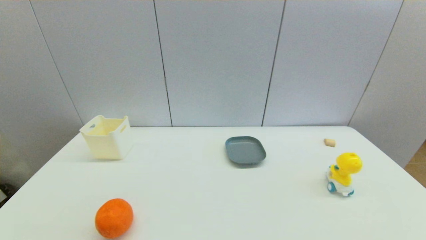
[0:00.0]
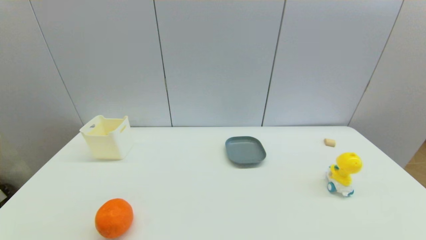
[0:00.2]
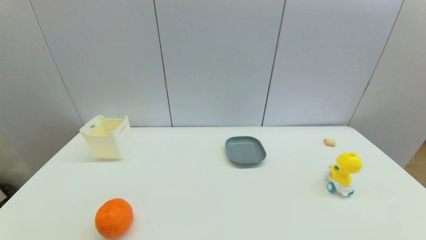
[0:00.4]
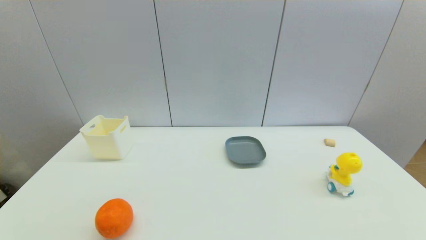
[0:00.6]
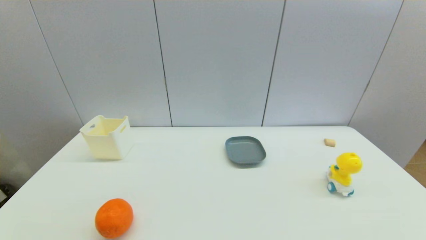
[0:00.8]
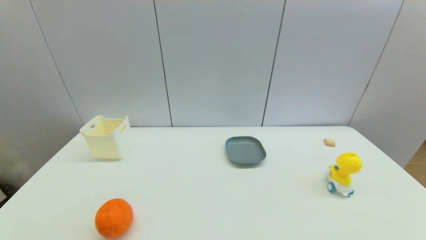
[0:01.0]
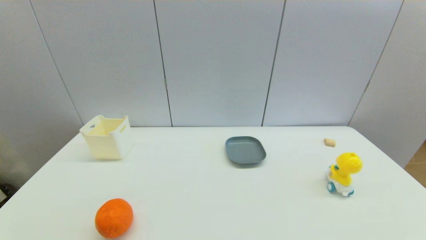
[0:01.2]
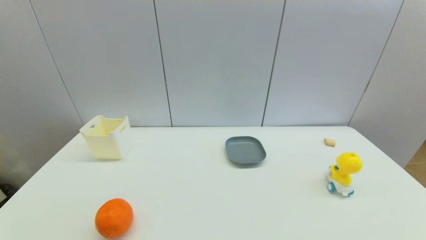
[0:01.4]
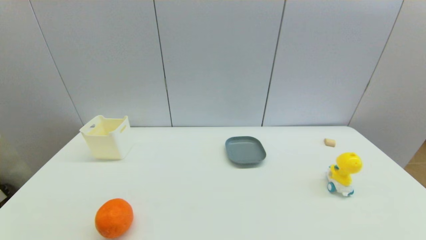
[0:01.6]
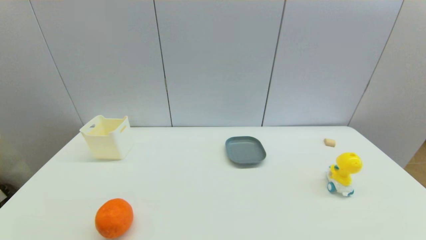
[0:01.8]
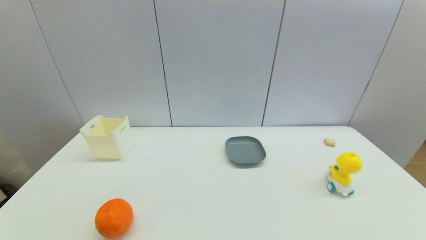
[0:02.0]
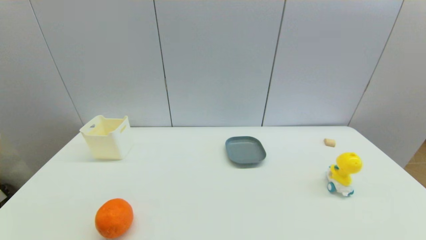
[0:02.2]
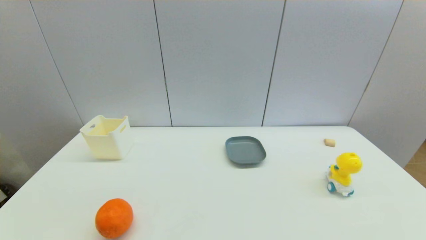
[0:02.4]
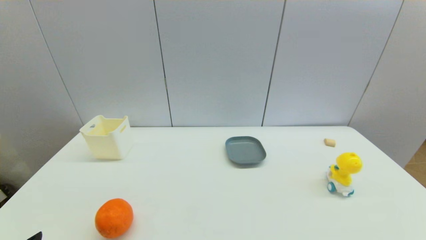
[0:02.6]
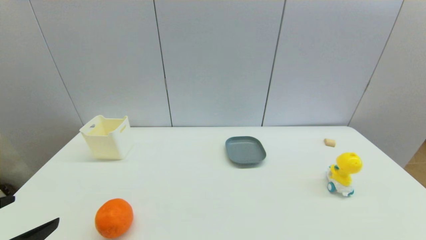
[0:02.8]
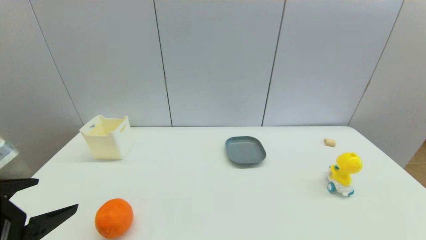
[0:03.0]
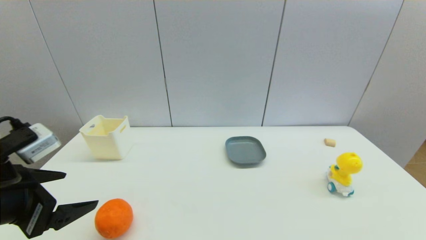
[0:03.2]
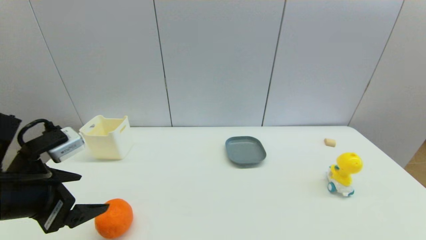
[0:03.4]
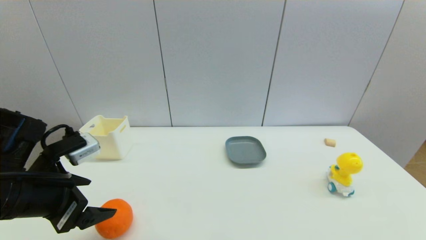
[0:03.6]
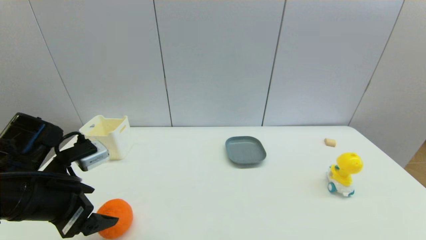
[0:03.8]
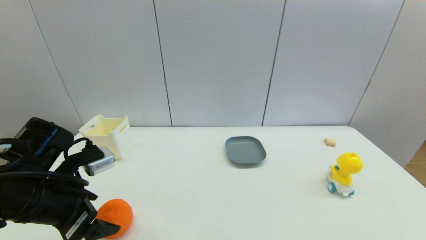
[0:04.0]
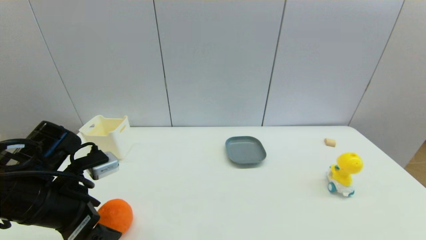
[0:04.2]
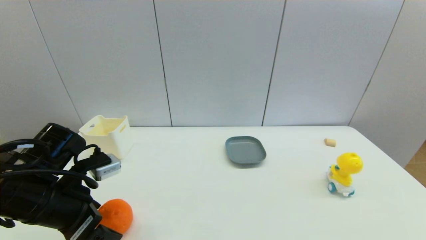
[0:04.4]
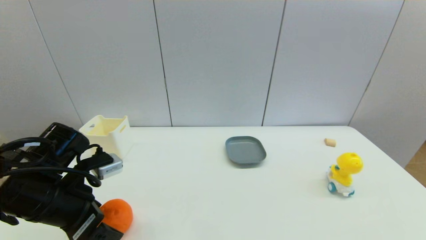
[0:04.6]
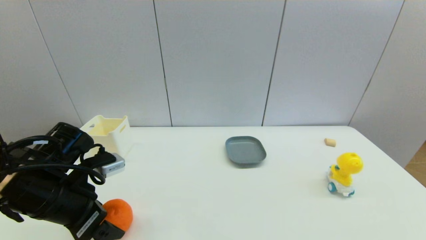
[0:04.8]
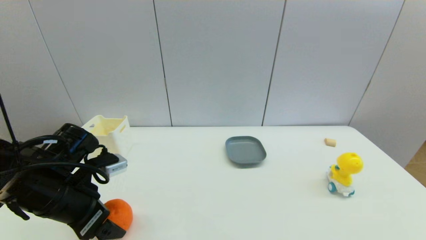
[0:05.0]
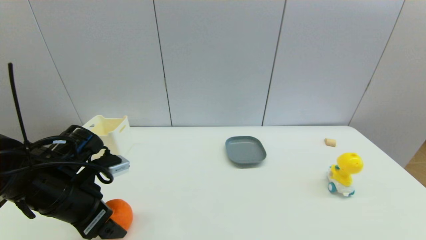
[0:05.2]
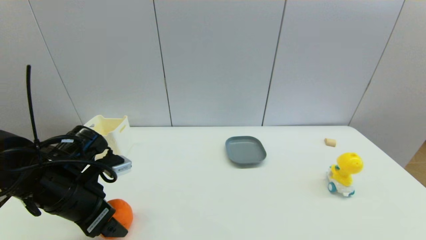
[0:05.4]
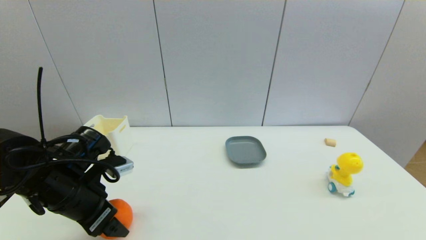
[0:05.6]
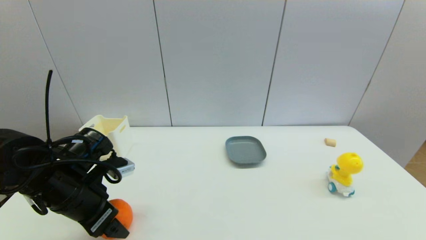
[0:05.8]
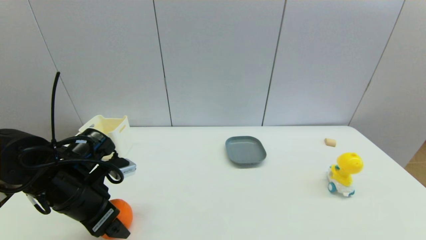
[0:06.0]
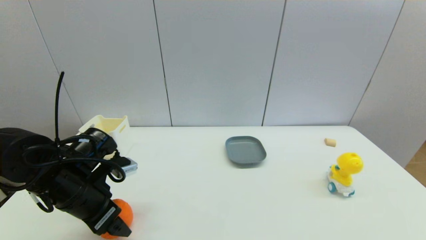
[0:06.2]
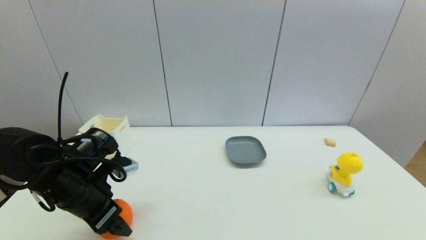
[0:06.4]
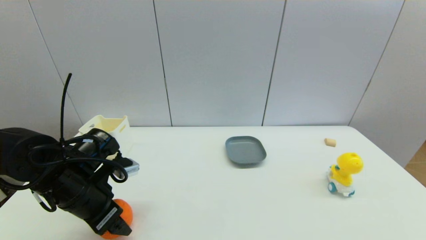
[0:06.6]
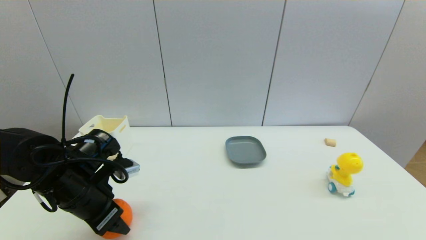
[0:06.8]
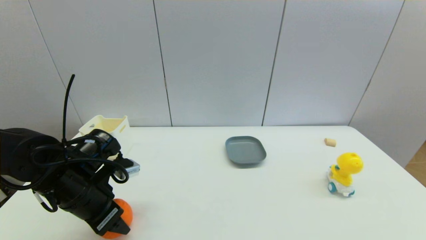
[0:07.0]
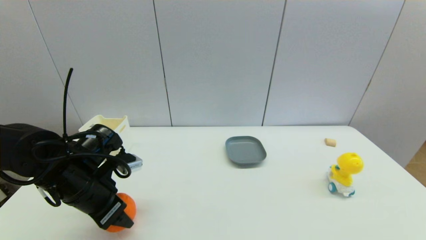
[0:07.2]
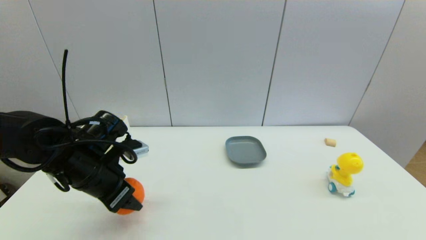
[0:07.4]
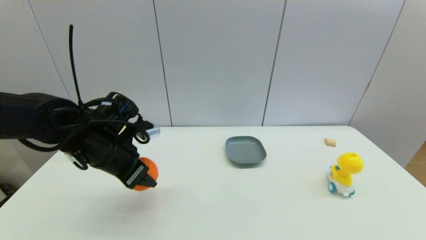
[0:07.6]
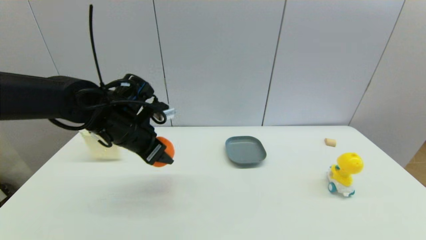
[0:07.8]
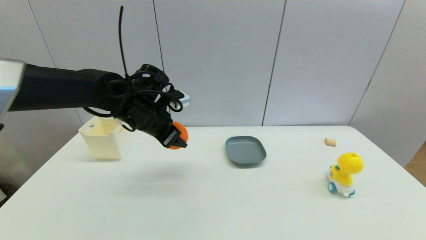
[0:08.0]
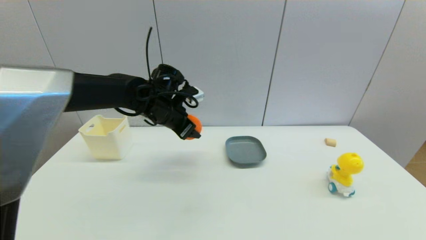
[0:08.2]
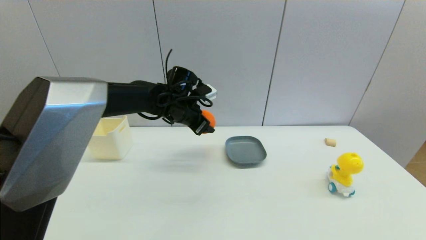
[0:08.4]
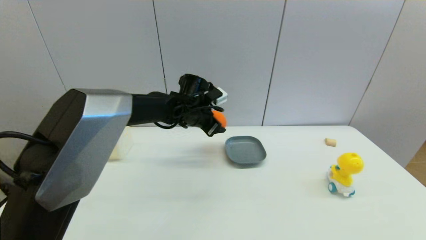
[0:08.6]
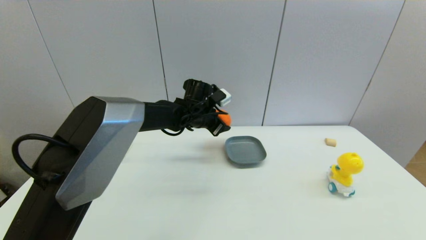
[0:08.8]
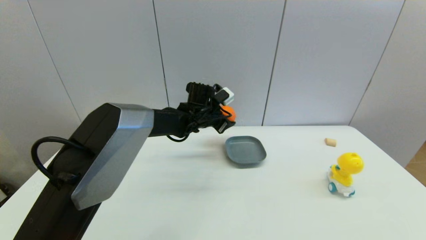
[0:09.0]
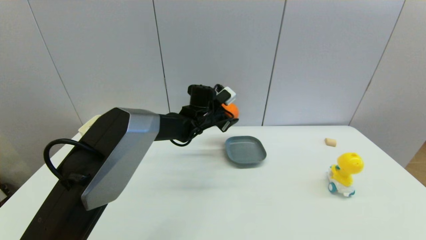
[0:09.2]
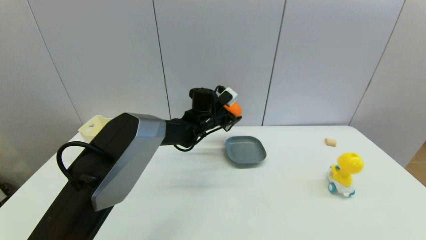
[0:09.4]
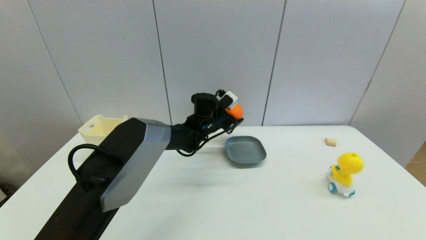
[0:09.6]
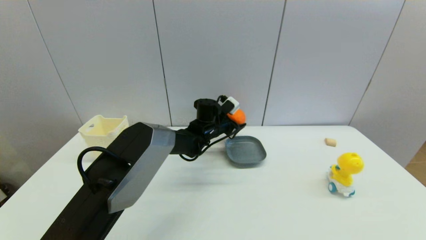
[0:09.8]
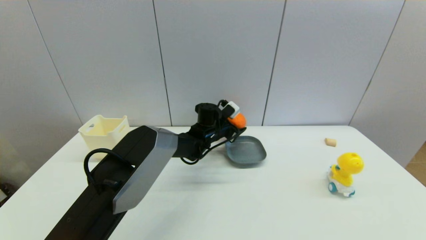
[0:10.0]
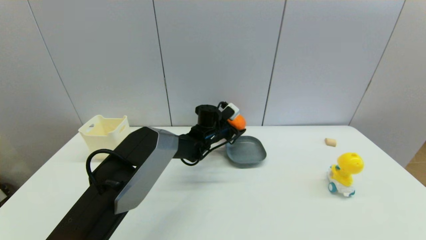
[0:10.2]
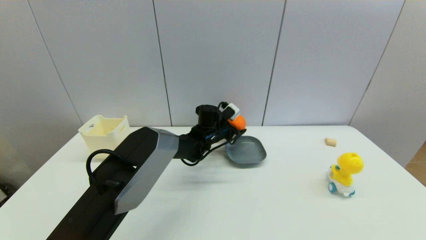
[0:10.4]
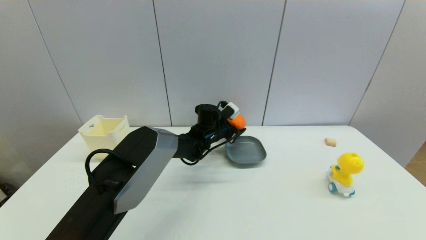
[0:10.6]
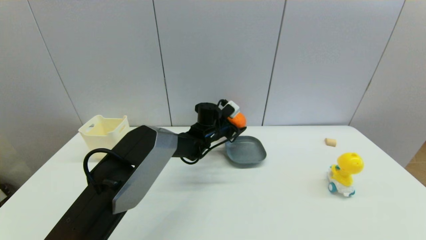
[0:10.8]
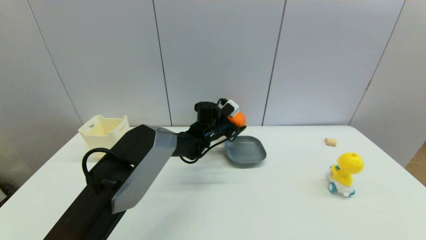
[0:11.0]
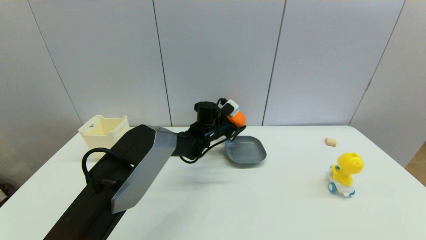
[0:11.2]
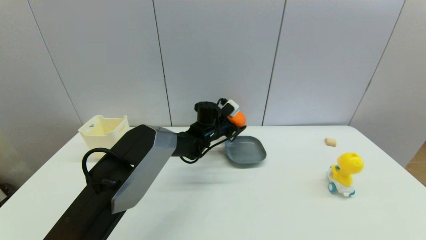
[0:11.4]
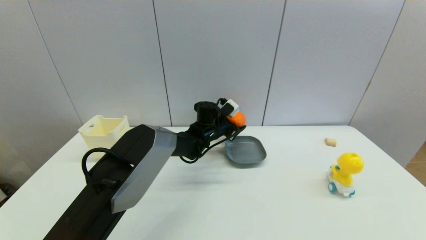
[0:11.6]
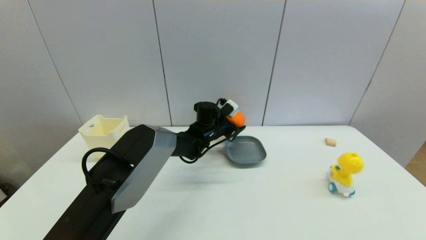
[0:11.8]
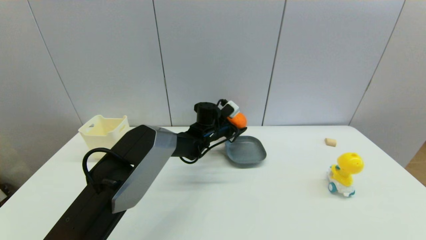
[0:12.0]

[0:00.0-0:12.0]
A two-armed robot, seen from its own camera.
Step, 0:02.6 to 0:06.8: Grasp the orange with left gripper.
0:00.0 to 0:01.6: The two grippers keep their place.
0:01.6 to 0:03.0: The left gripper goes about 20 cm upward and forward.
0:03.0 to 0:04.4: The left gripper heads forward and downward, covering some 10 cm.
0:04.4 to 0:06.0: There are only small adjustments of the grippers.
0:06.0 to 0:07.6: The left gripper moves forward, about 5 cm, and closes its fingers.
0:07.6 to 0:09.0: The left gripper is displaced forward and to the right by some 25 cm.
0:09.0 to 0:10.4: The left gripper moves downward, about 5 cm.
0:10.4 to 0:12.0: Both grippers stay about where they are.

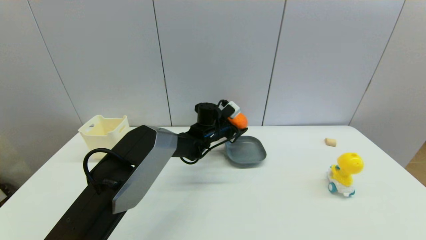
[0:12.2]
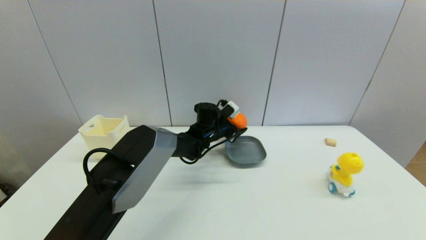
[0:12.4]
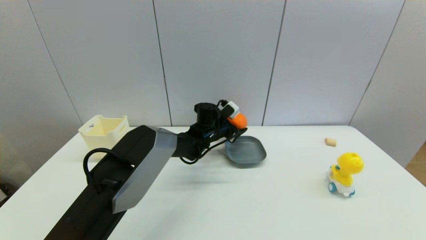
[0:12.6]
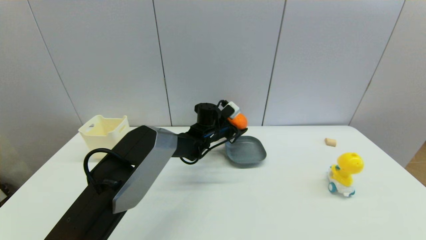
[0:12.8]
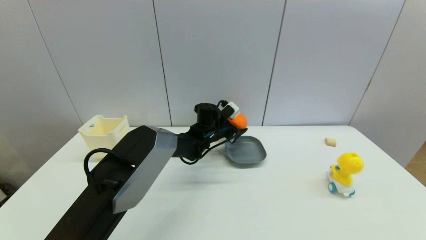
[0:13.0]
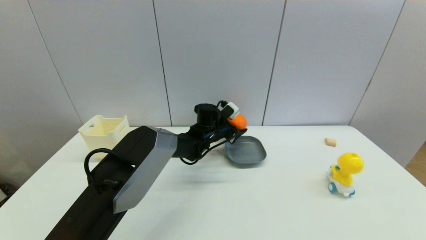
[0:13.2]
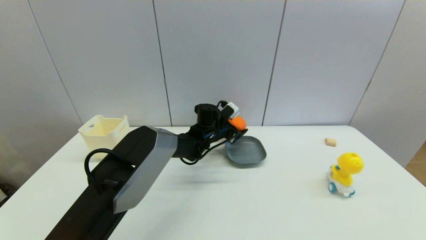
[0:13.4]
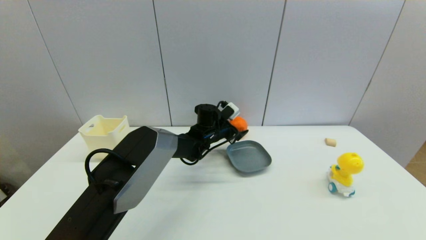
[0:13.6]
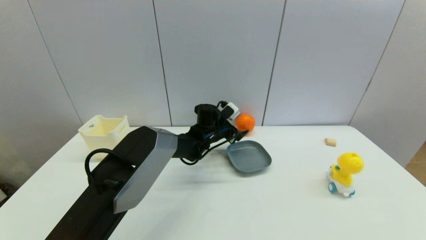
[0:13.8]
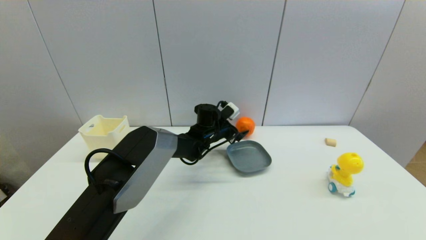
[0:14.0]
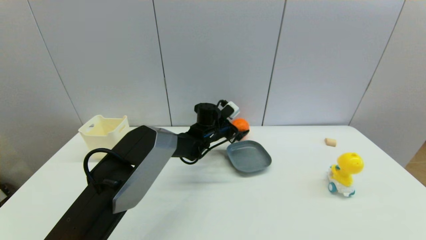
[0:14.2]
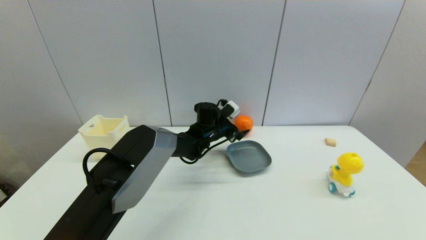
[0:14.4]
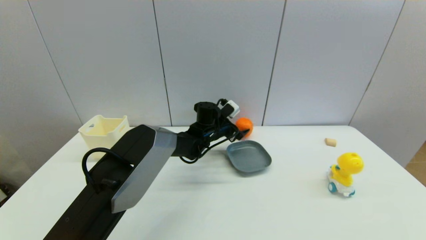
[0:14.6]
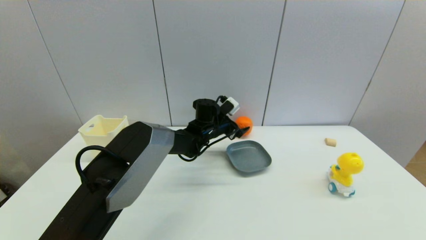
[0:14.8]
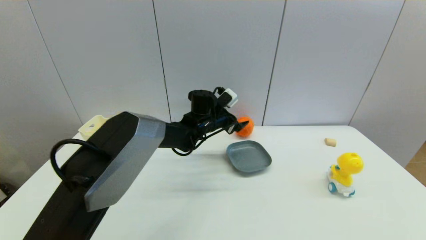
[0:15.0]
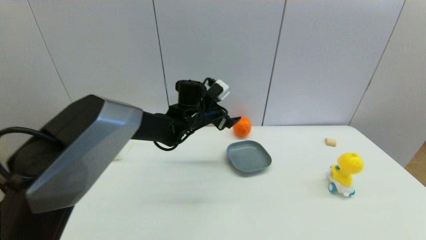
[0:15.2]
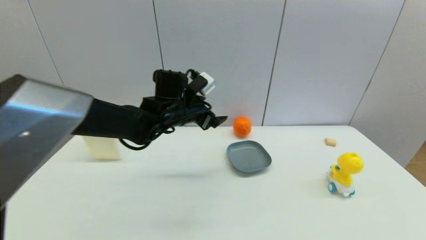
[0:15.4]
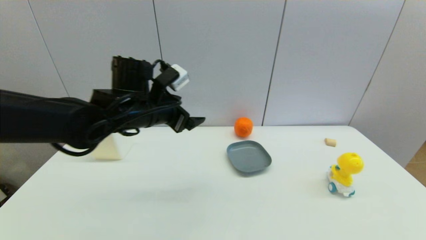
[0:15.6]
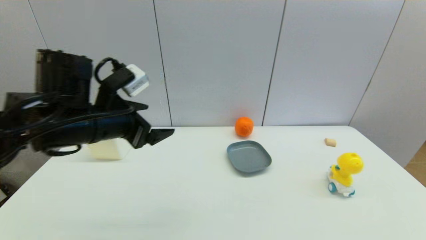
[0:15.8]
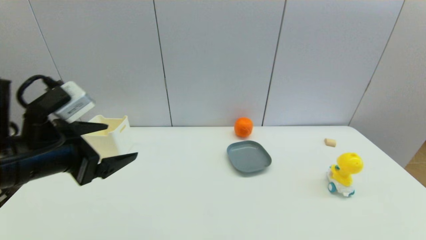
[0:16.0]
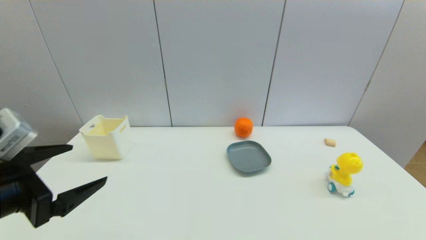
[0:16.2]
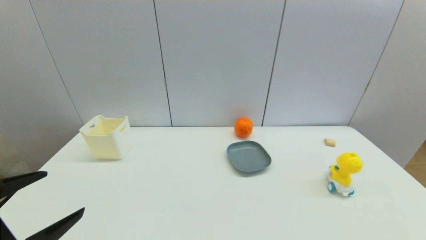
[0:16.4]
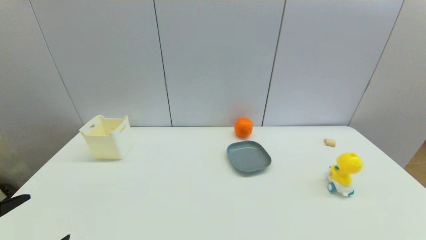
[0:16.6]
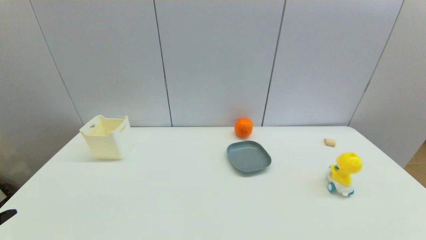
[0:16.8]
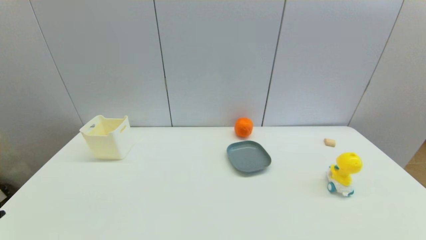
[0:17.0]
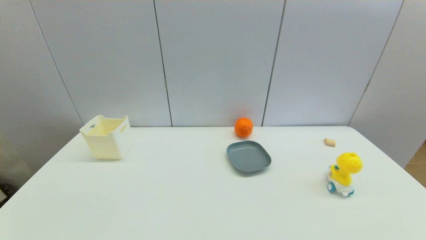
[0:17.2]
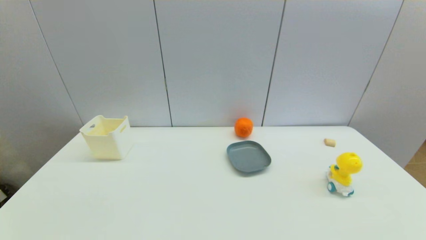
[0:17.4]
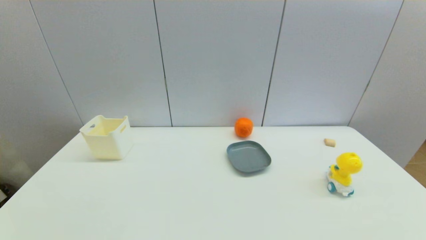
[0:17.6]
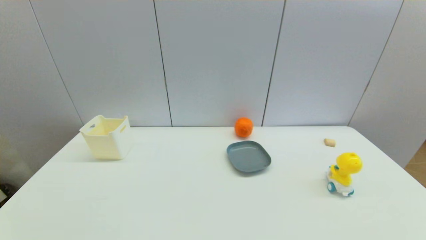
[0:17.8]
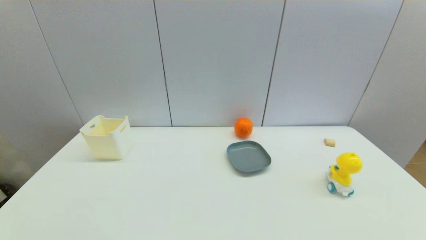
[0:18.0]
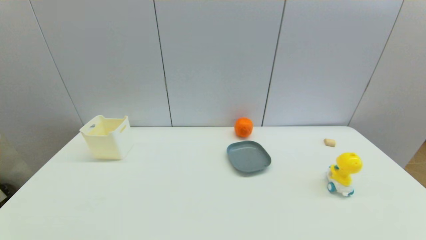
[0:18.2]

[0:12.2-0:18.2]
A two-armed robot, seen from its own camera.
0:12.2 to 0:13.8: The left gripper opens its fingers.
0:13.8 to 0:15.2: The left gripper is displaced upward by roughly 10 cm.
0:15.2 to 0:16.6: The left gripper travels backward and to the left by about 50 cm.
